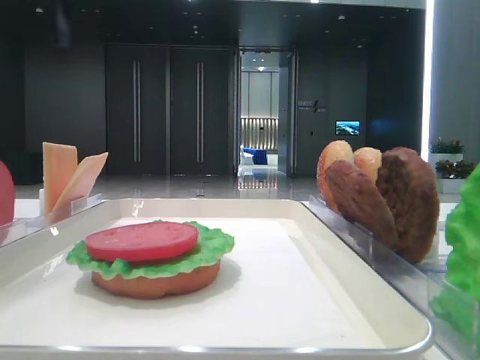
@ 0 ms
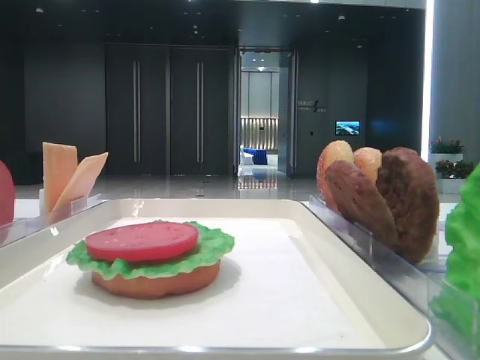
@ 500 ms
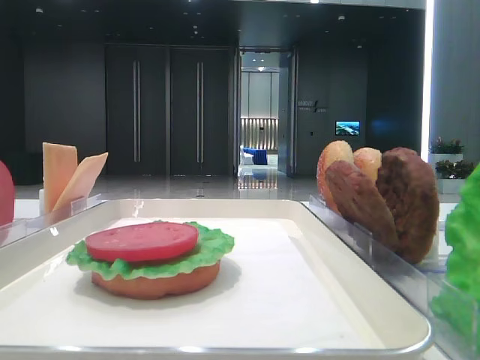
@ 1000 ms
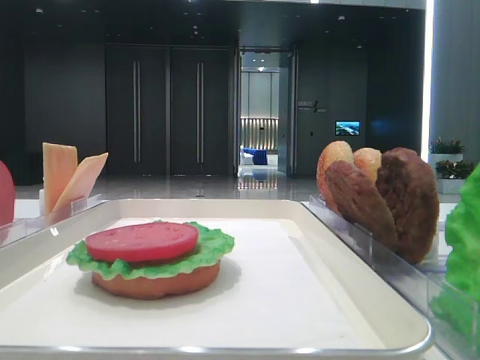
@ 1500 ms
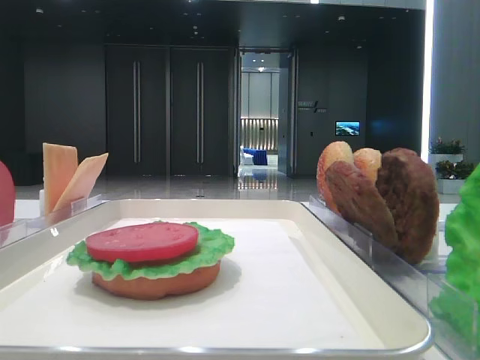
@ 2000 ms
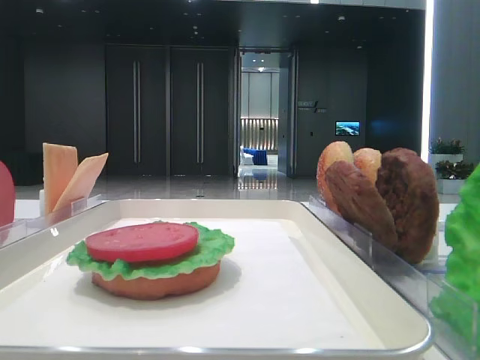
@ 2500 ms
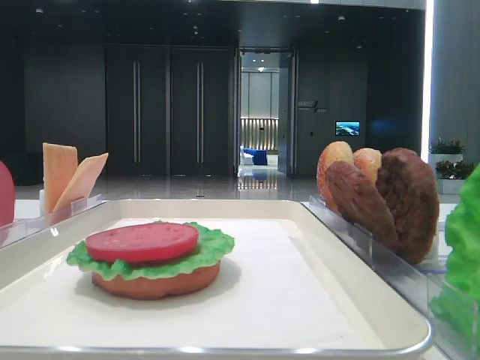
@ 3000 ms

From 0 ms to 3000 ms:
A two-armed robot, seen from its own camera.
From 0 ms to 1500 ms: The left gripper moves backward and to the left, about 25 cm.

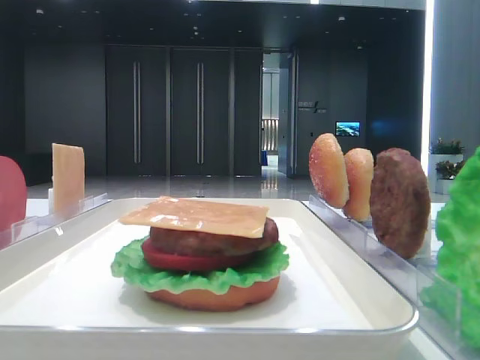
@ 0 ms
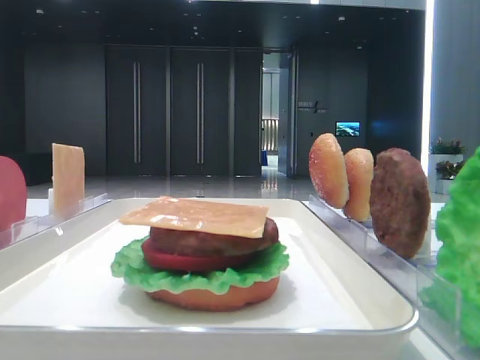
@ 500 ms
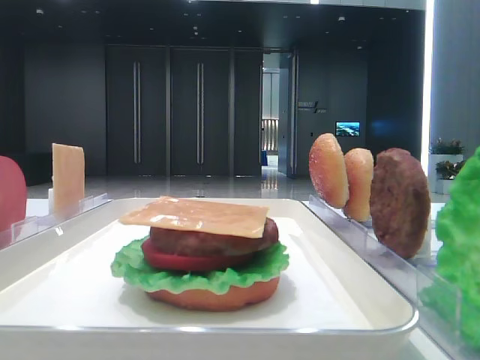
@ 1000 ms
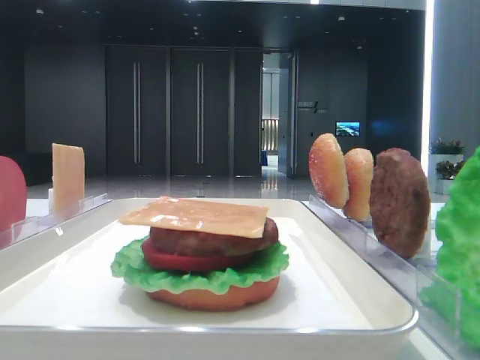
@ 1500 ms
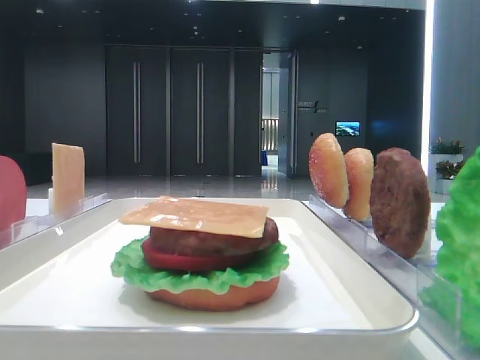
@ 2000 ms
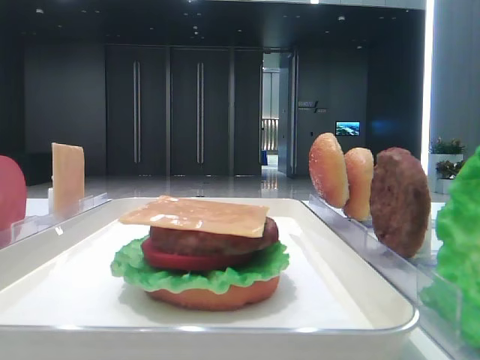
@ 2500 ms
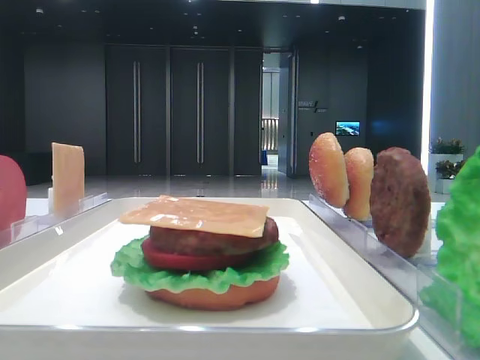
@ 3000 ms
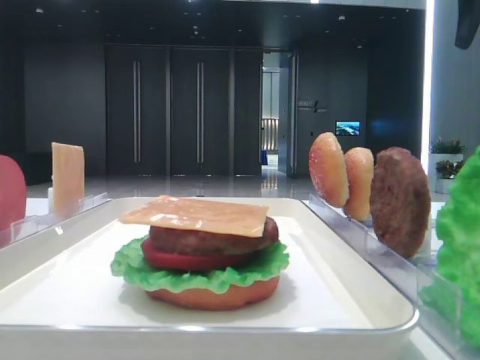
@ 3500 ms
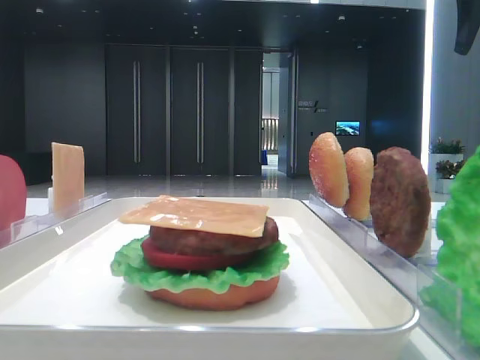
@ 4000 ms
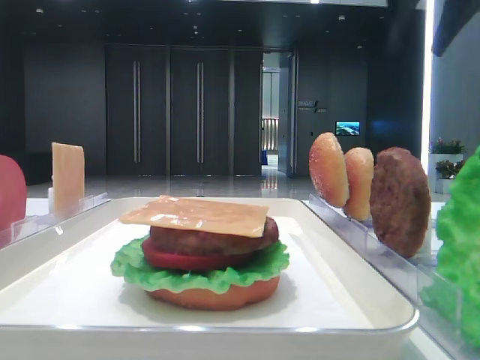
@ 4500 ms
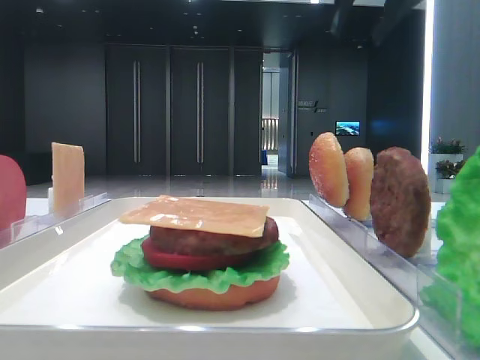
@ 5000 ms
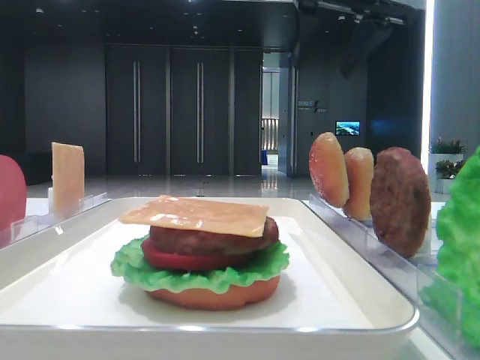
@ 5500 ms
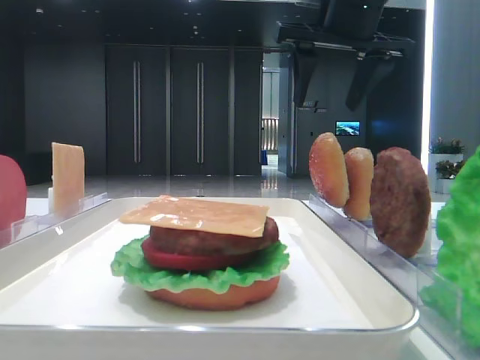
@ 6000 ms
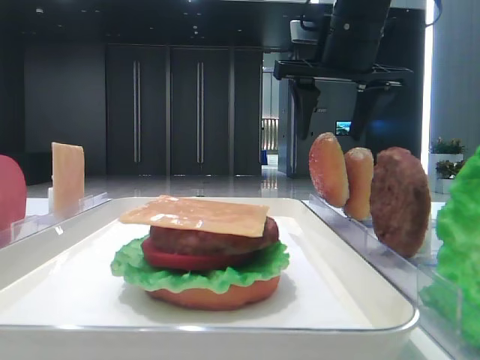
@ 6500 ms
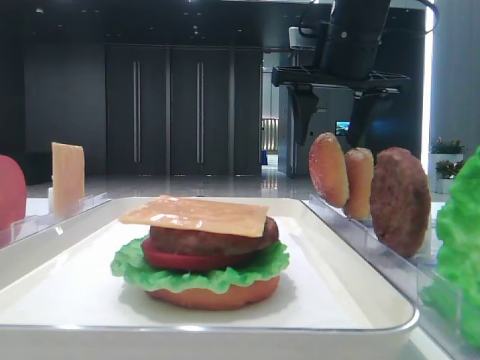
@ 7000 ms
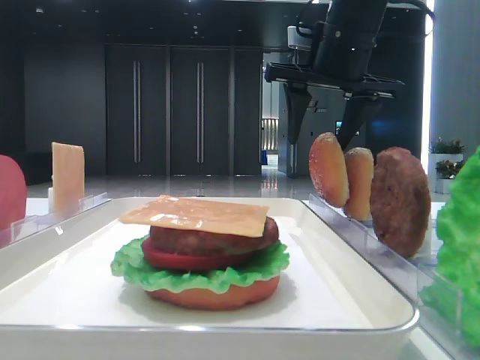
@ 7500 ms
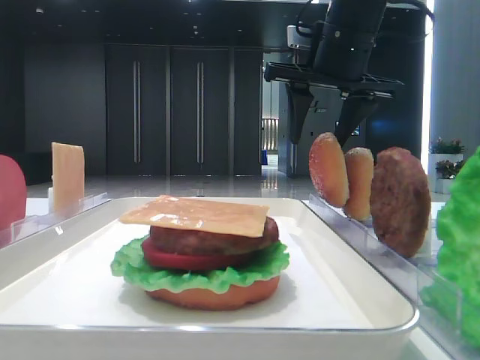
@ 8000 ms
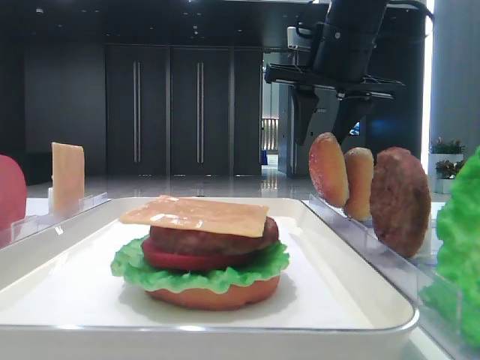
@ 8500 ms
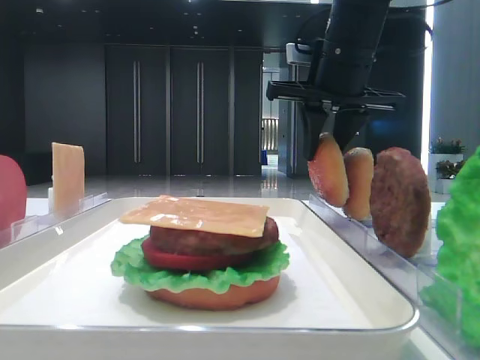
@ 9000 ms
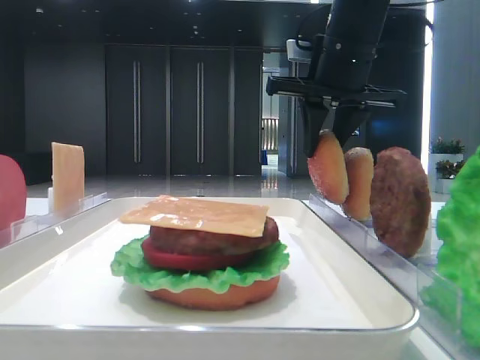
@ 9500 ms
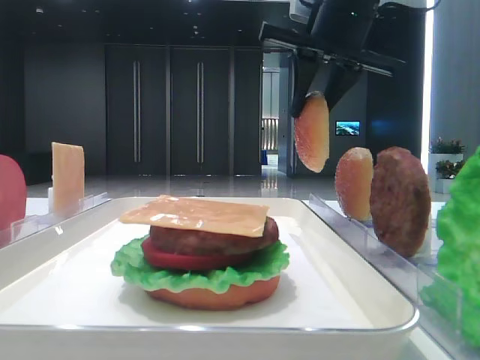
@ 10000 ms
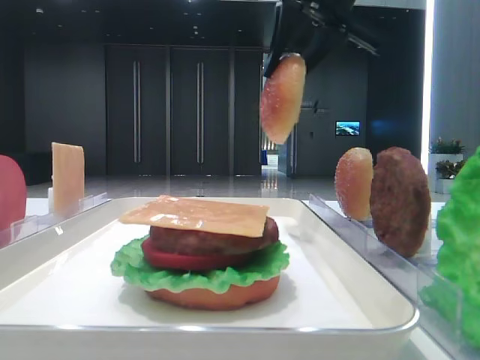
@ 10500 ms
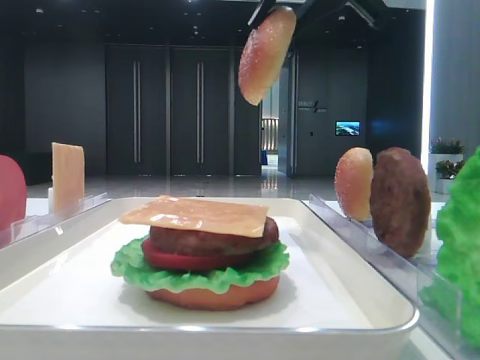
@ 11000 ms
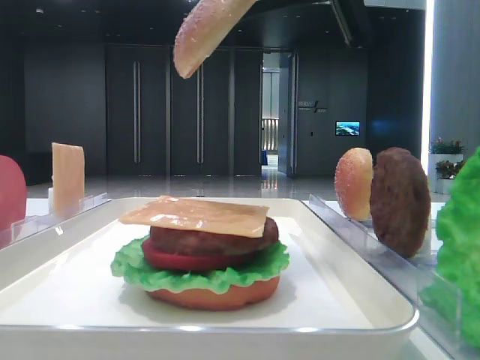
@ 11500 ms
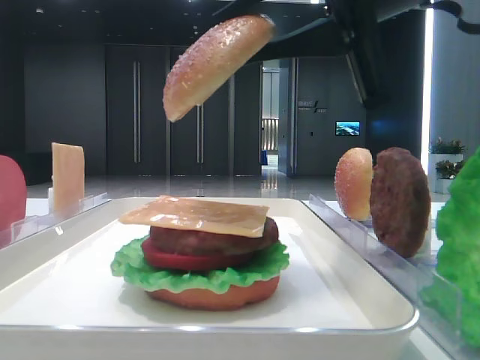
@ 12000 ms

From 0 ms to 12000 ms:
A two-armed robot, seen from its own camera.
Step, from 0 ms to 8500 ms: Pick up the top bread slice with the right hand.
From 2000 ms to 4000 ms: The right gripper goes some 30 cm forward.
From 4000 ms to 6000 ms: The right gripper shifts approximately 15 cm to the left.
From 6000 ms to 8000 ms: There are only small adjustments of the grippers.
From 8000 ms to 10000 ms: The right gripper closes up.
From 10000 ms to 12000 ms: The right gripper travels backward by some 15 cm.

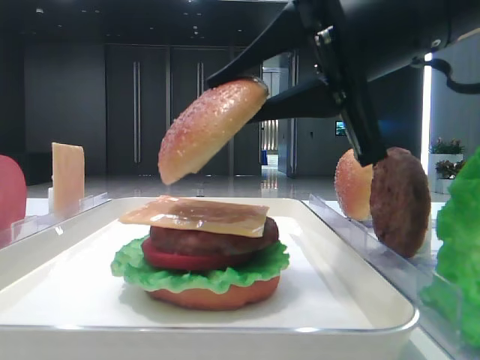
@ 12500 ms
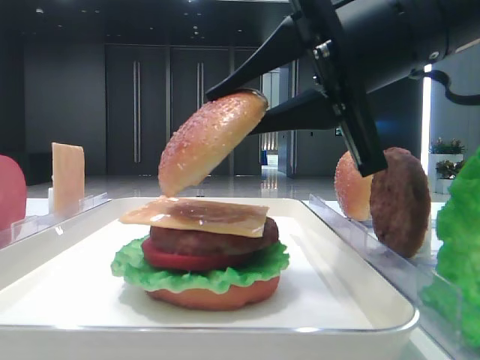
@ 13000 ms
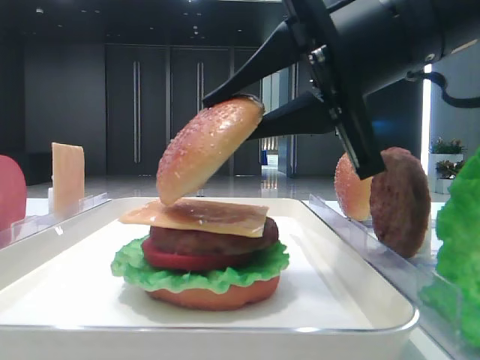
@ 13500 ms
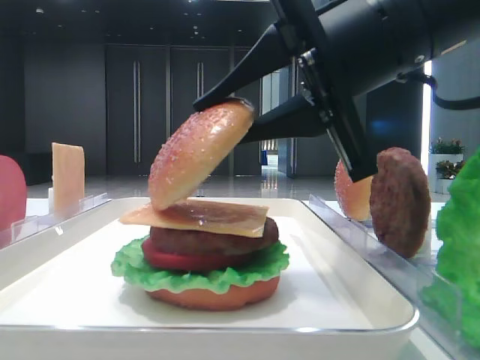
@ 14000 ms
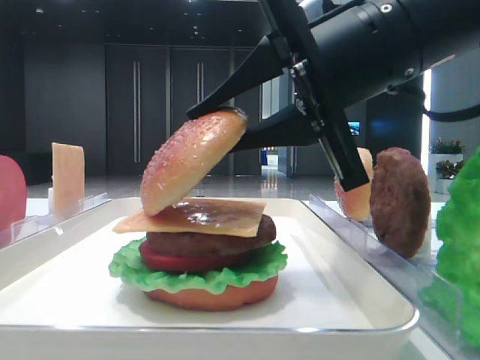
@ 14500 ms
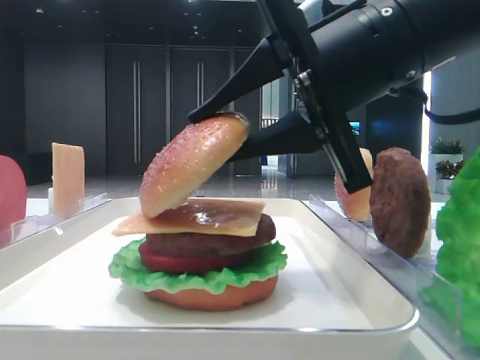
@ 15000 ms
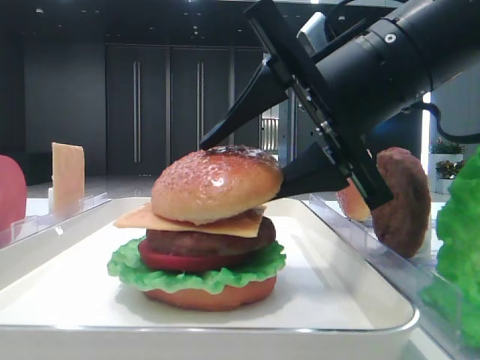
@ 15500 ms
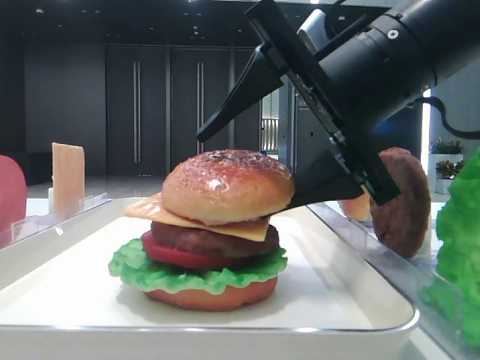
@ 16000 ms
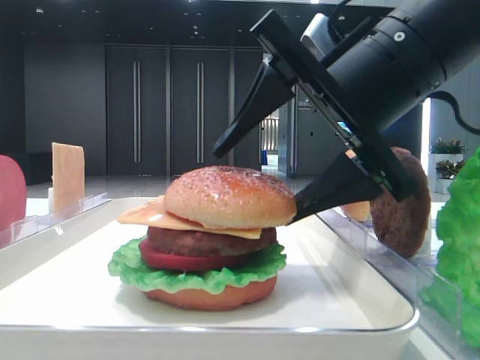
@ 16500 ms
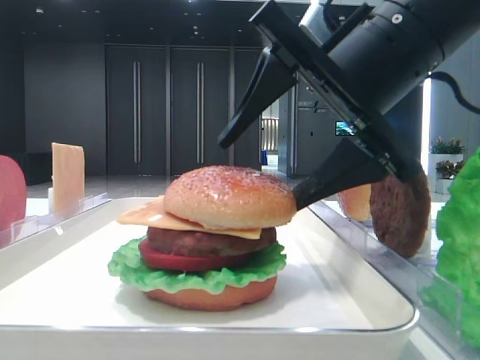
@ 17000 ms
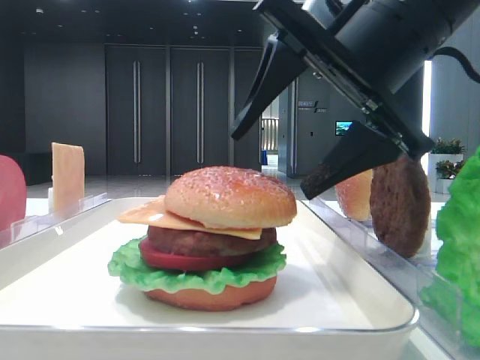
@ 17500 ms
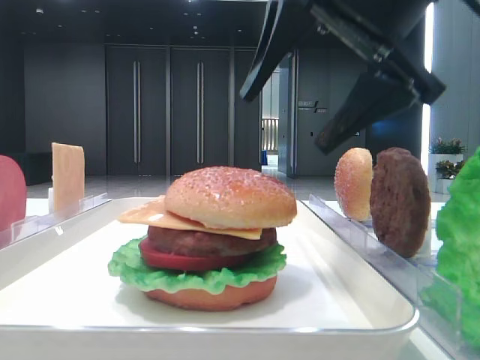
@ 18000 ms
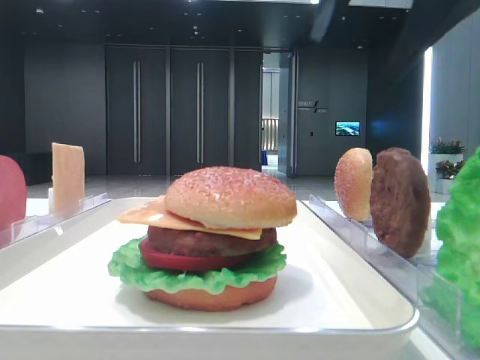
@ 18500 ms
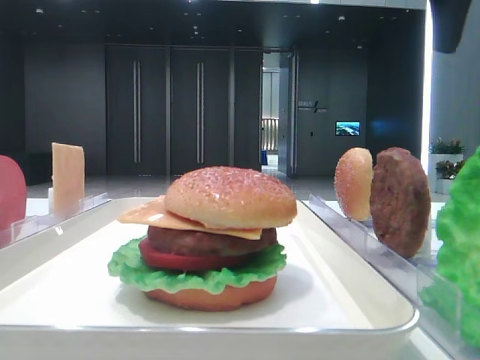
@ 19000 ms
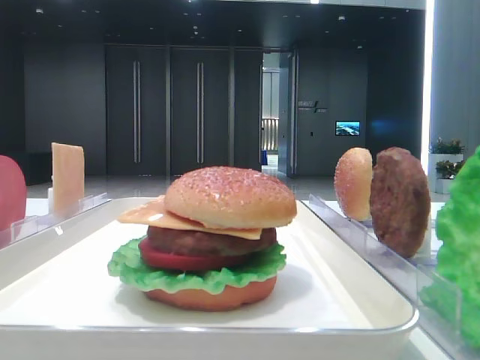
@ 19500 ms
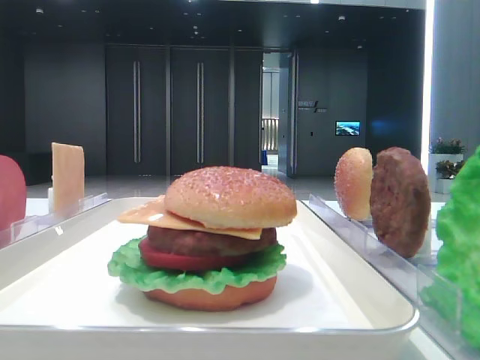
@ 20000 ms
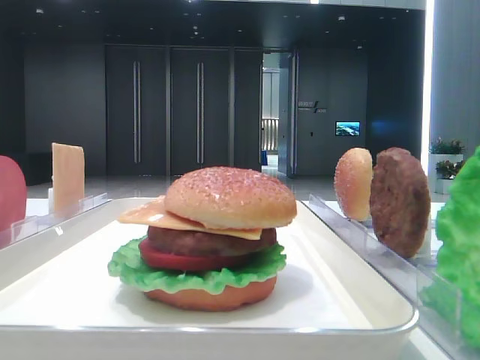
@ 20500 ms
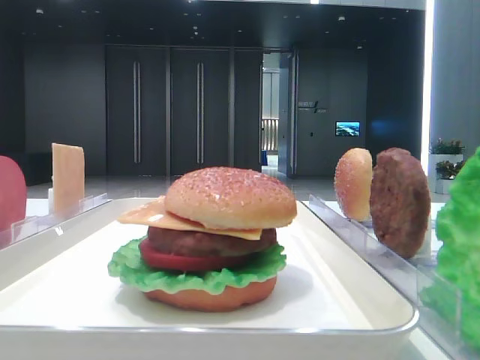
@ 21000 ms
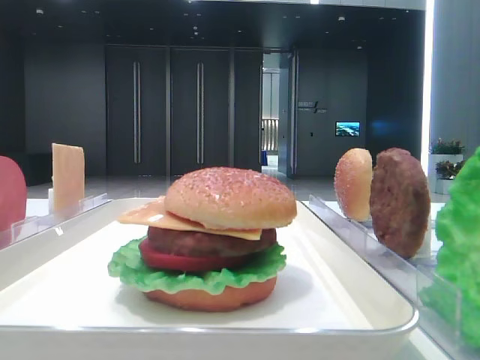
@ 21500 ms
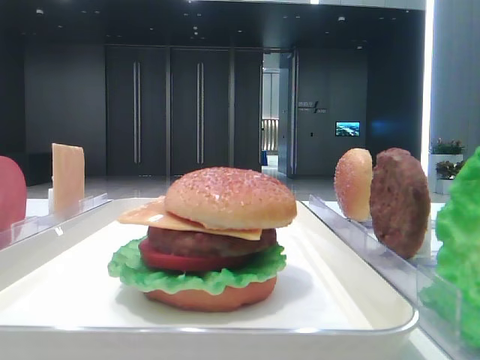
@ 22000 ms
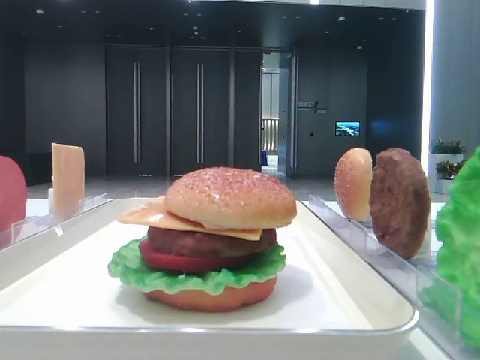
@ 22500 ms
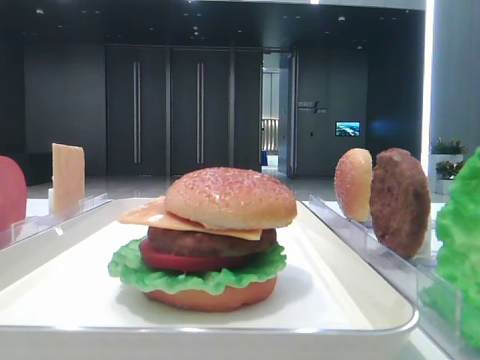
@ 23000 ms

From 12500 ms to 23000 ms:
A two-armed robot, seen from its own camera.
Step, from 12500 ms to 17000 ms: Place the top bread slice on the cheese with the right hand.
From 12500 ms to 14500 ms: The grippers move only a little.
From 14500 ms to 16500 ms: The right gripper opens.
From 16500 ms to 19000 ms: The right gripper shifts roughly 15 cm upward and to the right.
From 19000 ms to 21000 ms: The right gripper heads backward and to the right, covering about 25 cm.
